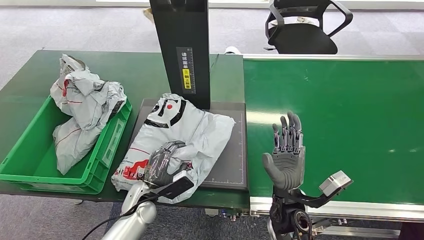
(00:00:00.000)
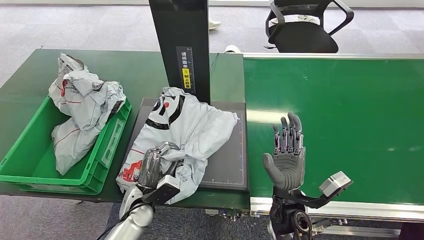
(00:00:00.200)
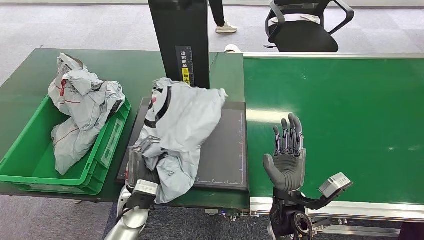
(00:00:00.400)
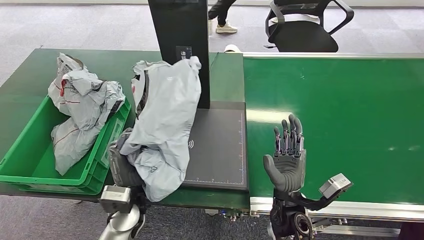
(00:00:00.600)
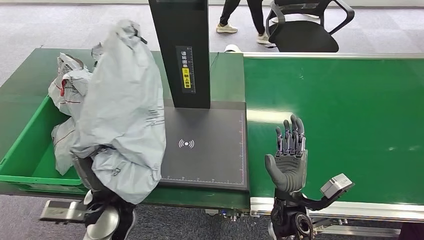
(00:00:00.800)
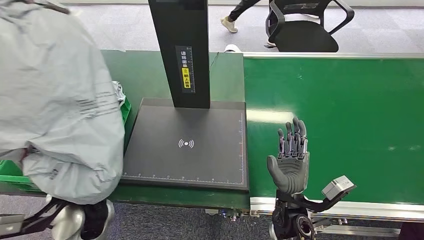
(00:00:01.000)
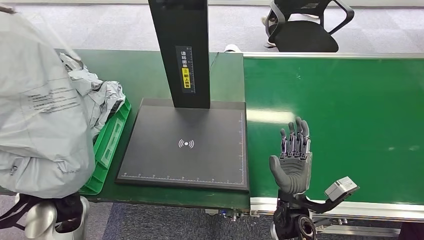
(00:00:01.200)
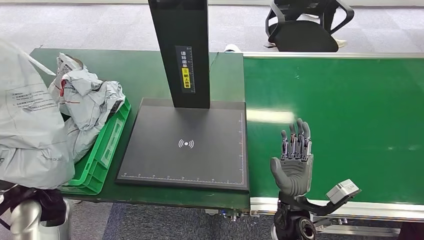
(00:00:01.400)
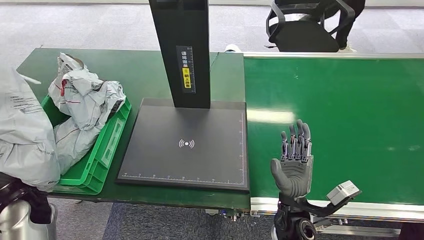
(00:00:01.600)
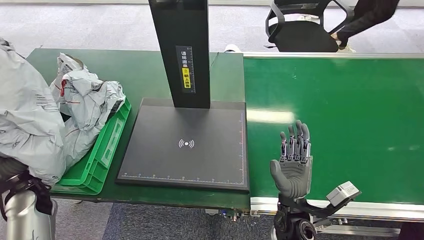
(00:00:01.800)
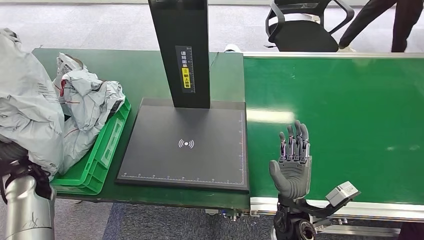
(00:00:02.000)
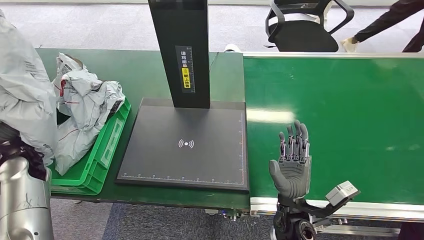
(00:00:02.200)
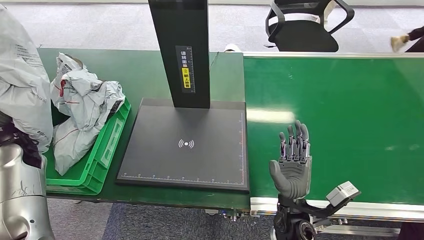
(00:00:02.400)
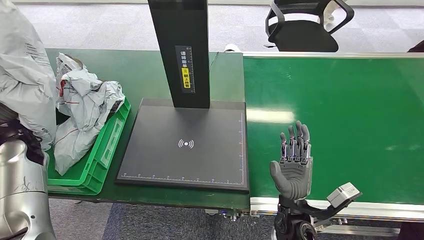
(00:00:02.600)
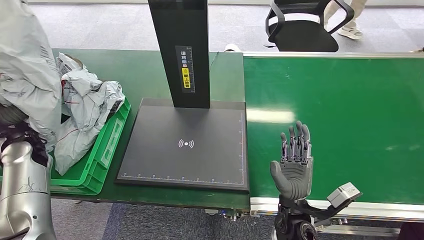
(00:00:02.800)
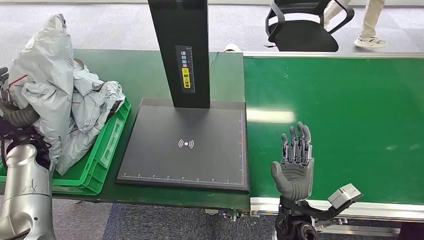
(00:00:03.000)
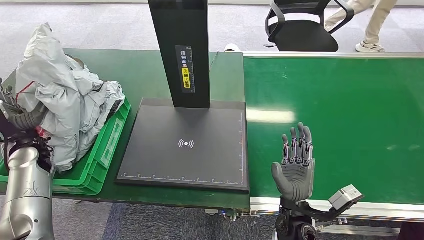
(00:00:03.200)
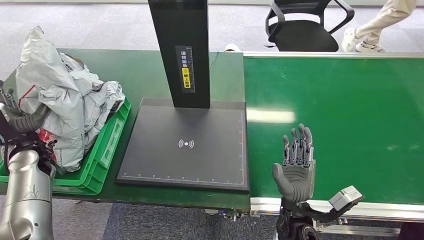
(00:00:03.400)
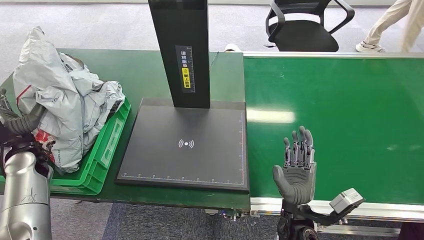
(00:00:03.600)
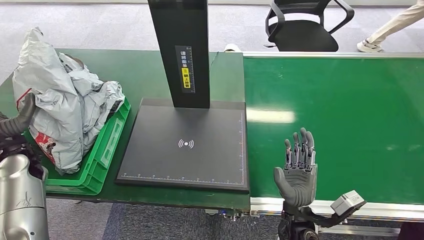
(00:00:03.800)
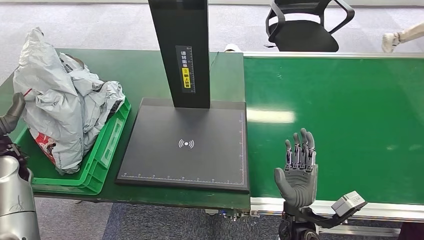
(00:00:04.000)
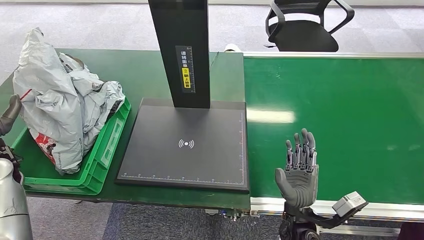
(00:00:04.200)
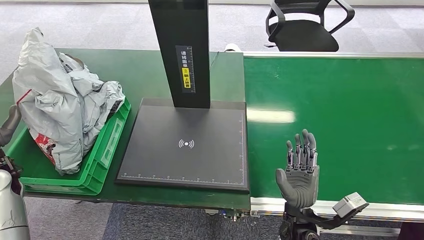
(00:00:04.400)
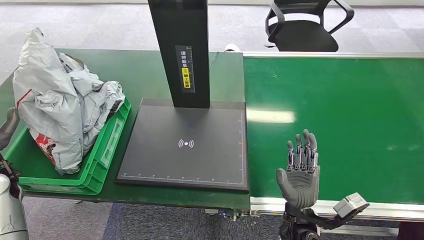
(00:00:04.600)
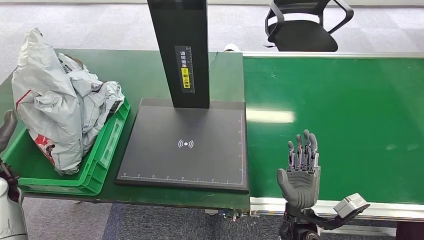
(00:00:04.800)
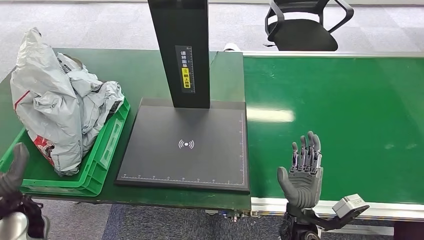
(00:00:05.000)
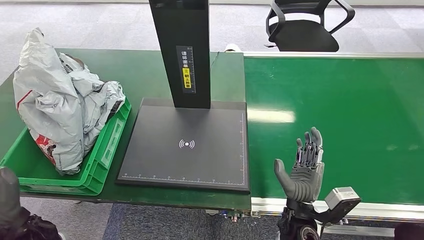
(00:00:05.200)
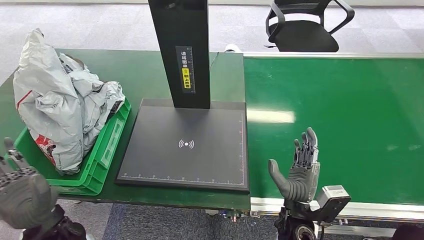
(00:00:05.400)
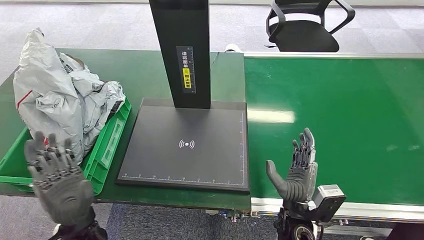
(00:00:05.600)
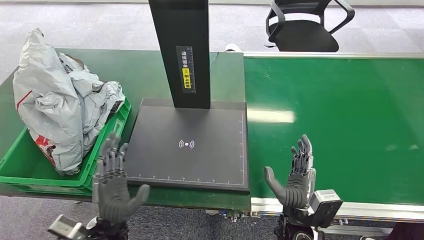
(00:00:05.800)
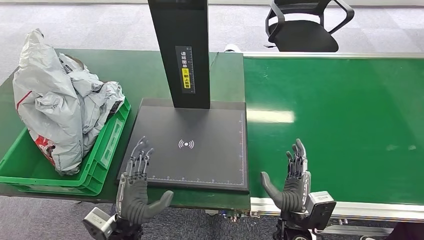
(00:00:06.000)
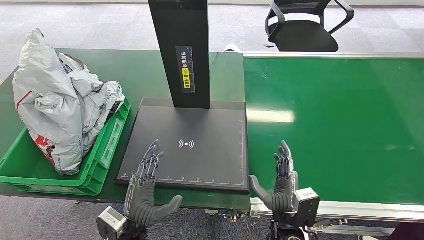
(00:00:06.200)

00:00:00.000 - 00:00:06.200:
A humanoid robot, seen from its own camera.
Step, 00:00:01.200 - 00:00:06.200: Place the package into the parcel locker.
00:00:01.600 - 00:00:03.200: The left hand goes roughly 10 cm forward and to the left.
00:00:03.200 - 00:00:04.600: The left hand is displaced backward by roughly 5 cm.
00:00:04.600 - 00:00:06.200: The left hand is displaced to the right by about 35 cm.
